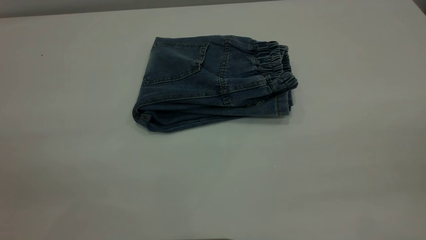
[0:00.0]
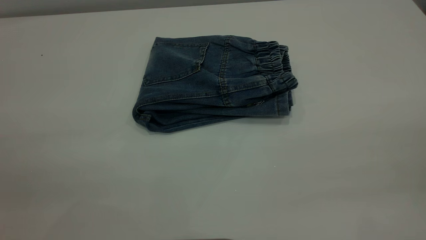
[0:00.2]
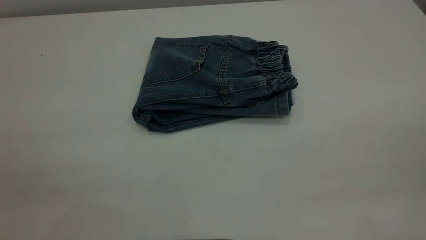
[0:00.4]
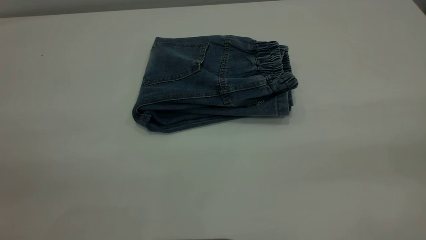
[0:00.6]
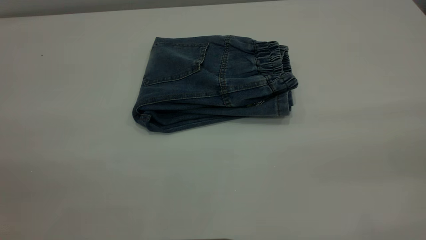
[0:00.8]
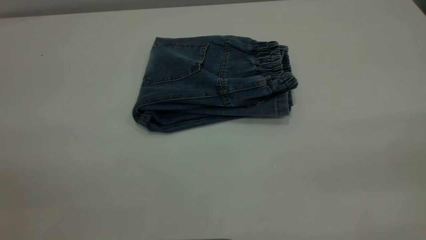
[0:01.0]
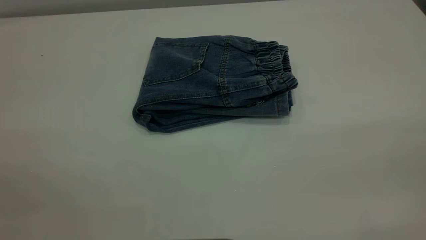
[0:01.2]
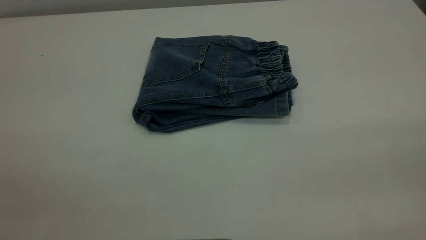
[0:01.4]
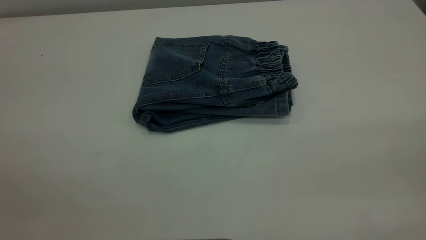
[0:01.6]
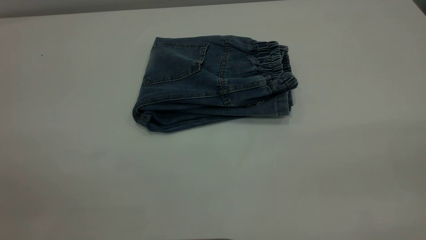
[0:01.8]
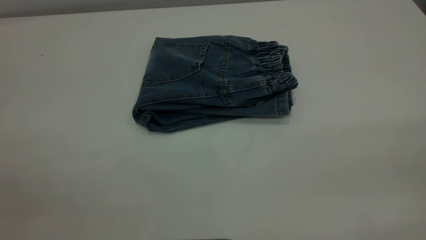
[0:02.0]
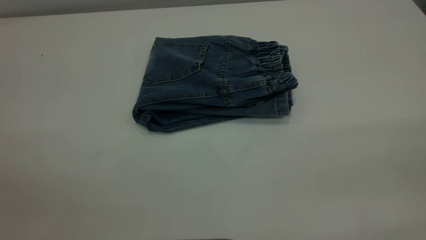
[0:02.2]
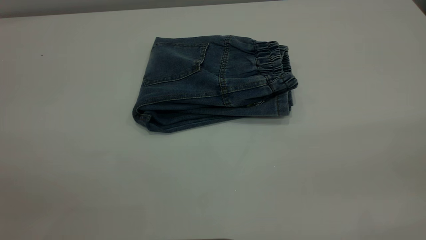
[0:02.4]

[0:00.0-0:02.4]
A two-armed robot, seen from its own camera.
1.2 to 2.4 s: The two grippers keep their place.

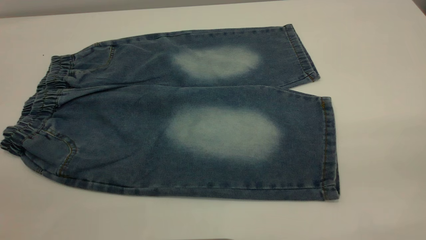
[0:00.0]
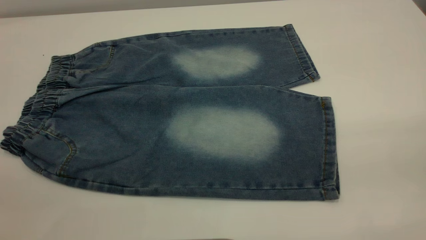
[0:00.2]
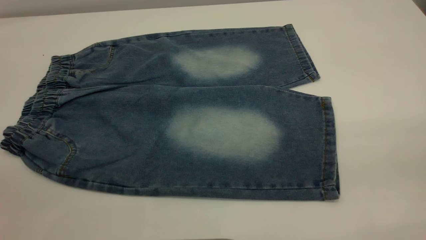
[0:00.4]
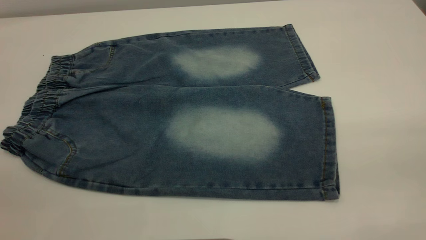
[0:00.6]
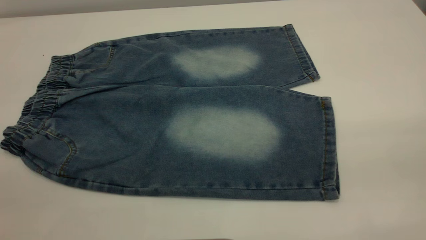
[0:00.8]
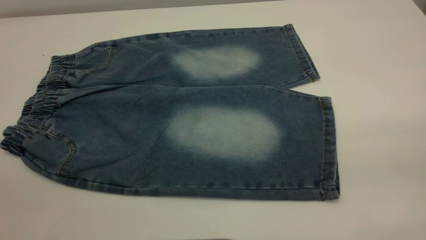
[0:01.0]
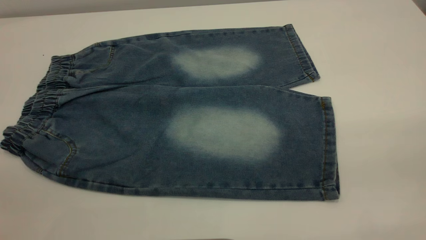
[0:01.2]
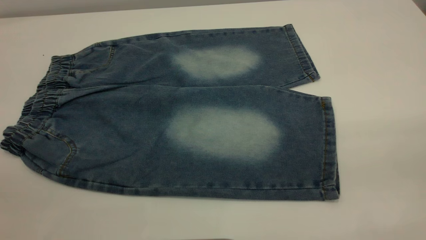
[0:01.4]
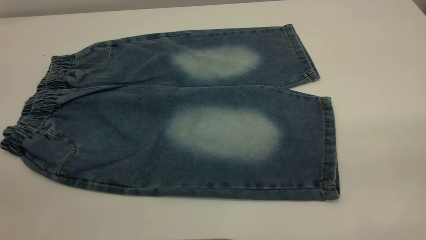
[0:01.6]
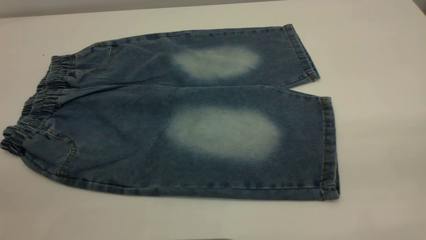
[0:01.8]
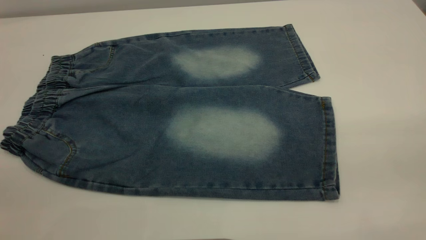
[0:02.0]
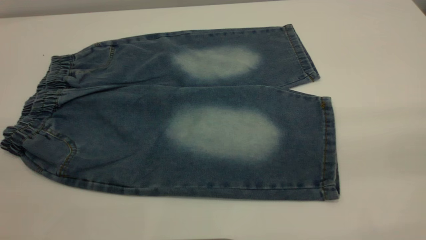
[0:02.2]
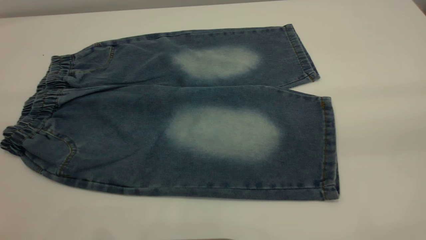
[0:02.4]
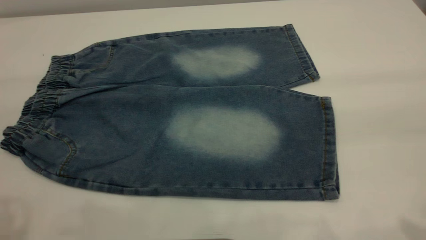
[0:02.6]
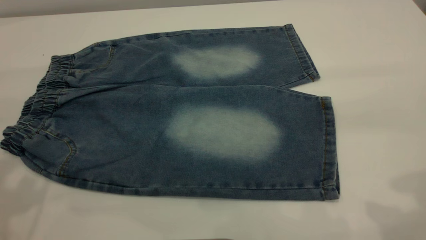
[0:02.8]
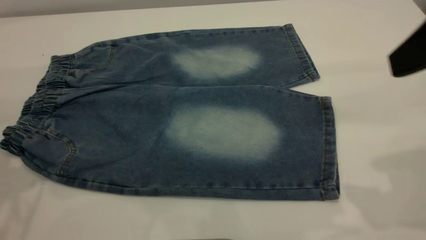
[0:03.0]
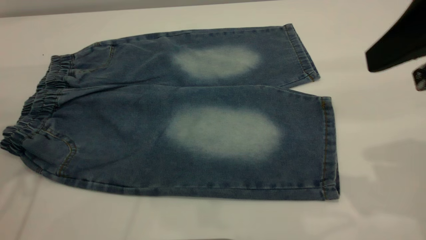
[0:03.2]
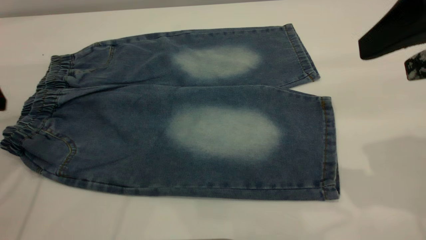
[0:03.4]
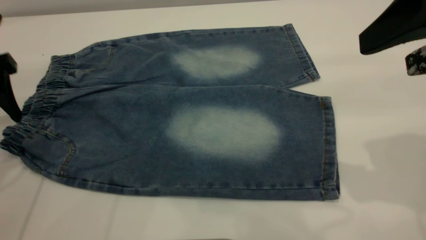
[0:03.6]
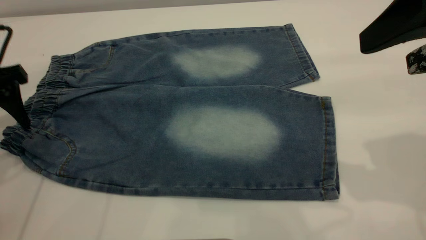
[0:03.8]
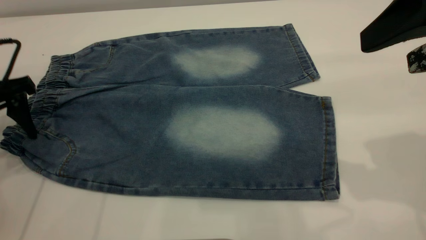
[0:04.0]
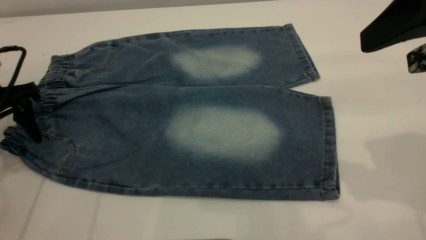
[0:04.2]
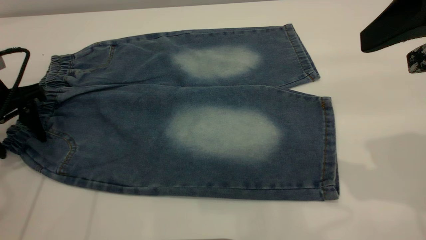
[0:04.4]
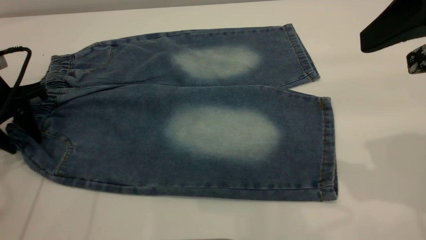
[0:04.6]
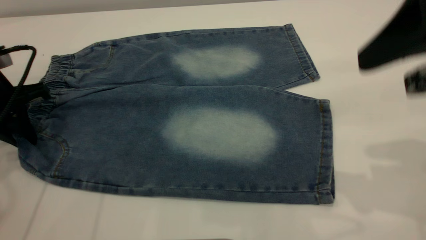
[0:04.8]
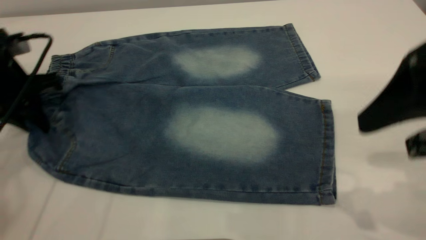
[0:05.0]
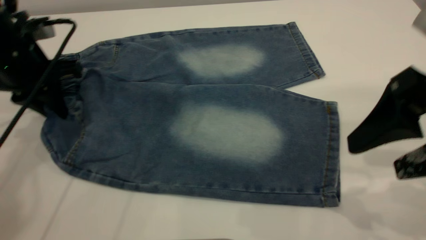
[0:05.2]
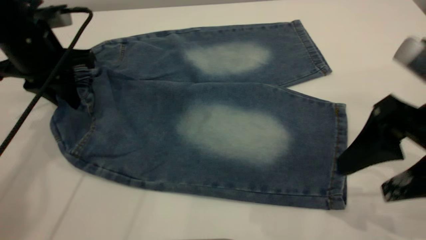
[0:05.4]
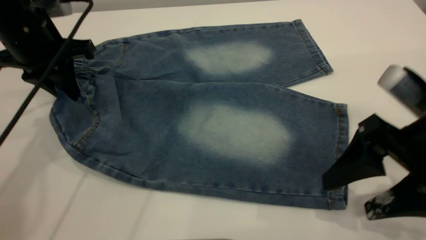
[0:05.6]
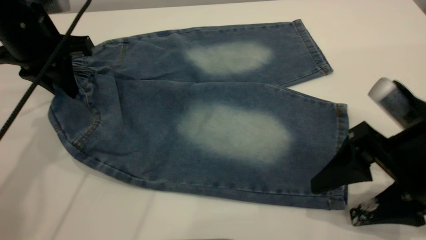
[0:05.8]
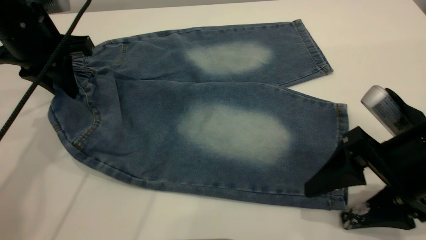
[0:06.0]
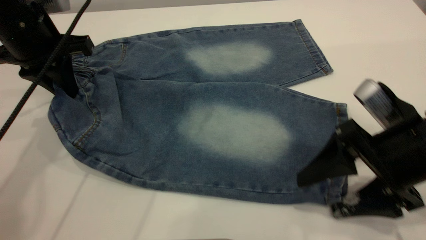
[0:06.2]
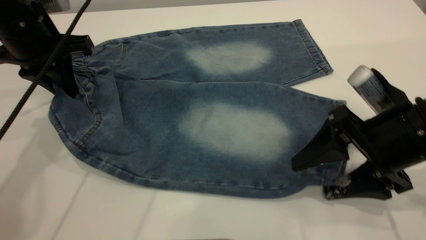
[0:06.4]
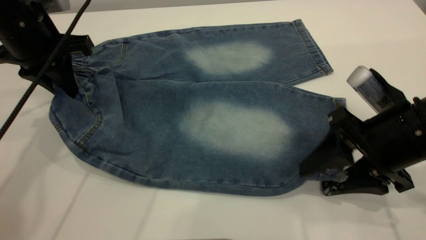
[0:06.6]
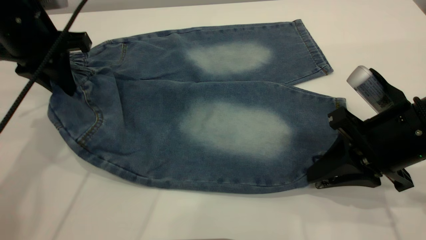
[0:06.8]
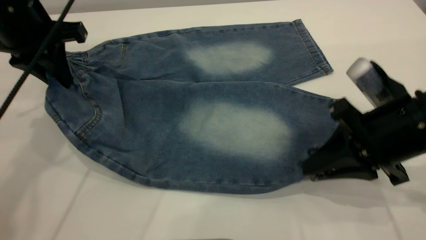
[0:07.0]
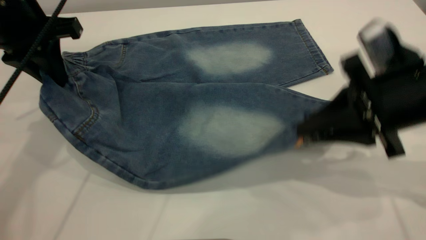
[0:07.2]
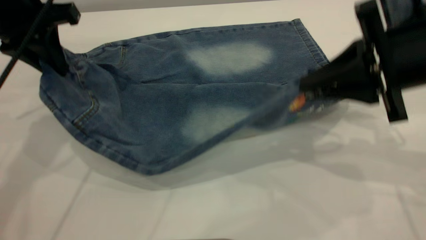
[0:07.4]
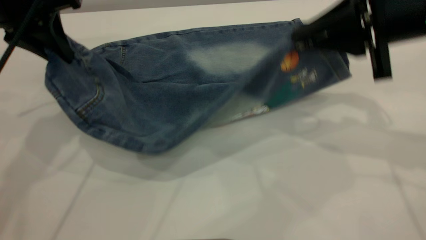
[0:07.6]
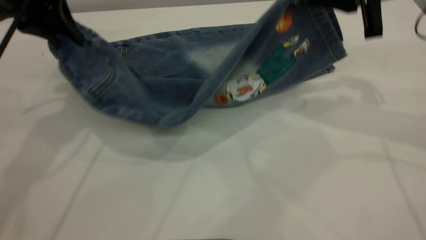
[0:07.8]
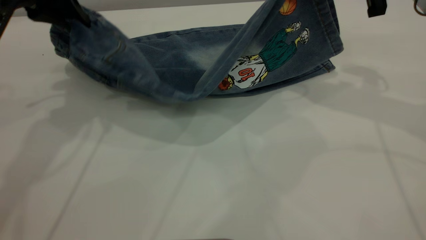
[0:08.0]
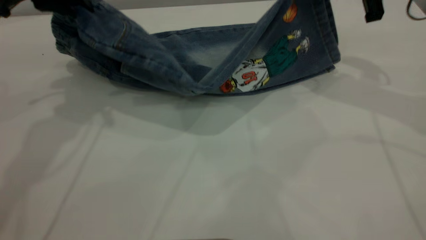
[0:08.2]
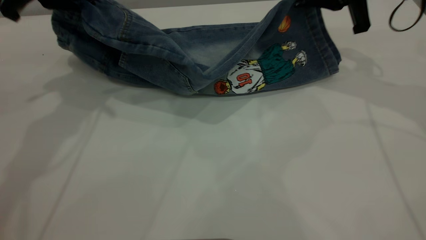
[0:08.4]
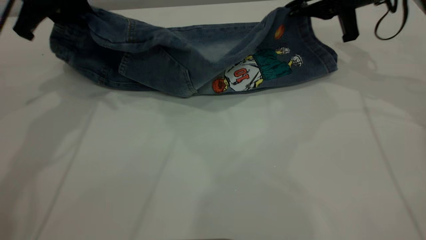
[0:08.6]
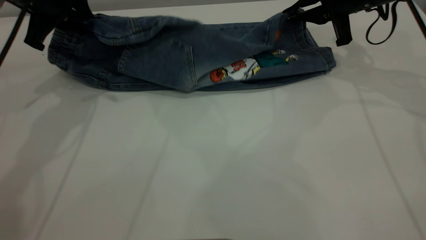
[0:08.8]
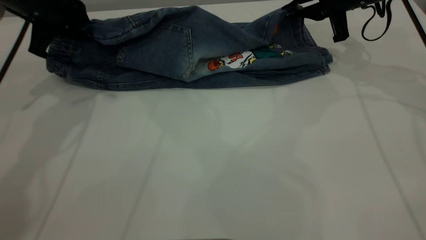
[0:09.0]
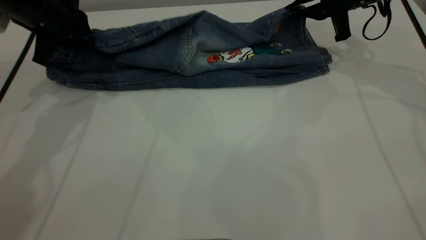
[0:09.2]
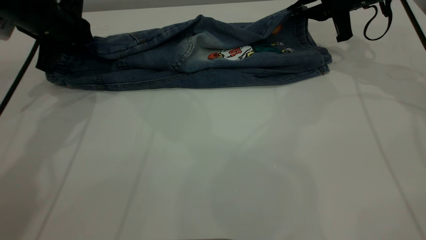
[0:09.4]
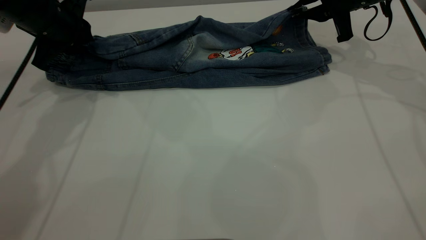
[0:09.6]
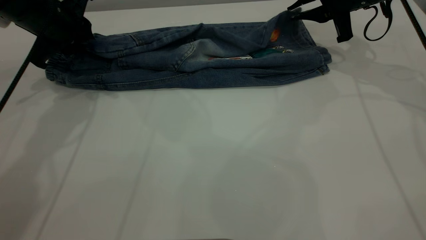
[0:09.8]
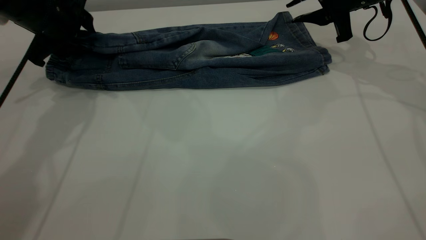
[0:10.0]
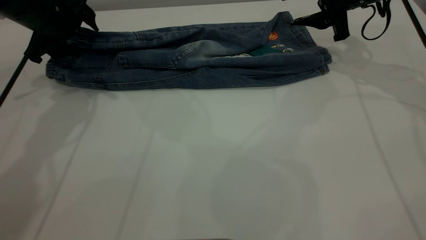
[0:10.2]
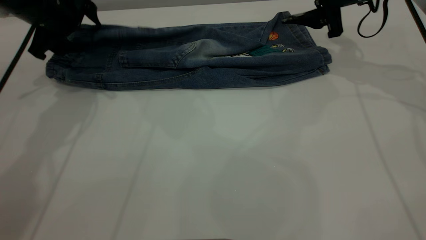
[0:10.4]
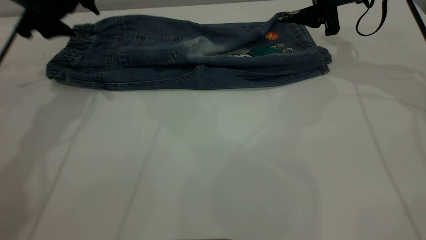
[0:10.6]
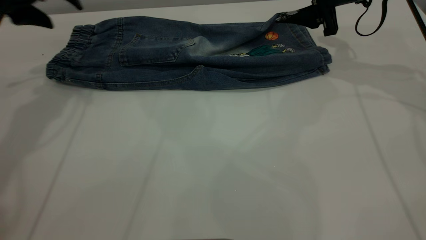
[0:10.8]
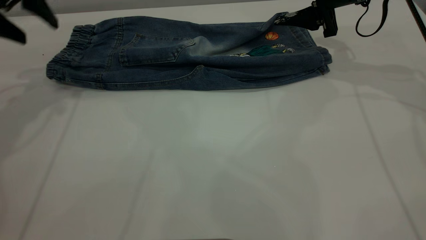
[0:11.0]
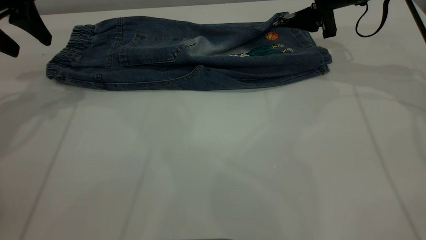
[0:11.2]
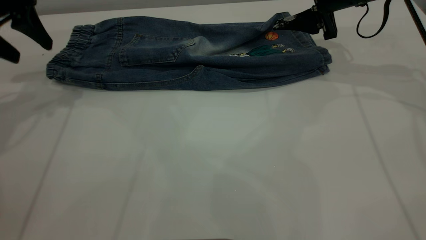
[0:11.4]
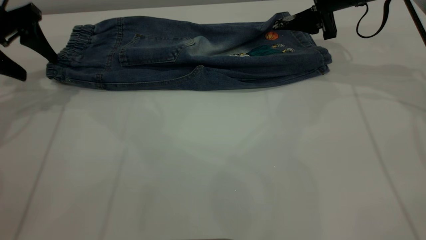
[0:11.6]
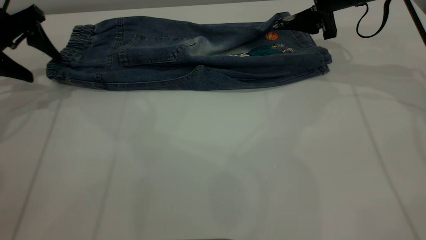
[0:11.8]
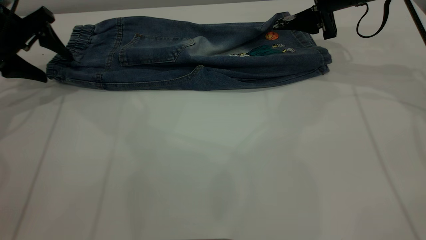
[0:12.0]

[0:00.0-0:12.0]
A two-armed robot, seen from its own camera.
Step, 0.0 to 11.0 s: Fold the bottom of the pants upward.
0.0 to 1.6 s: Neither gripper changes place.
1.6 to 3.0 s: The right gripper is displaced forward by roughly 20 cm.
3.0 to 4.4 s: The left gripper shifts roughly 15 cm downward and forward.
4.4 to 6.0 s: The right gripper shifts approximately 15 cm downward. Meanwhile the left gripper is displaced to the right and upward by some 10 cm, and closes up.
6.0 to 7.6 s: The right gripper goes approximately 15 cm upward and forward, and closes its fingers. The left gripper shifts roughly 5 cm upward.
7.6 to 9.0 s: The right gripper goes approximately 15 cm forward, while the left gripper travels downward and forward by about 10 cm.
9.0 to 10.4 s: The right gripper opens up; the left gripper opens.
10.4 to 12.0 s: The left gripper shifts about 10 cm to the left.

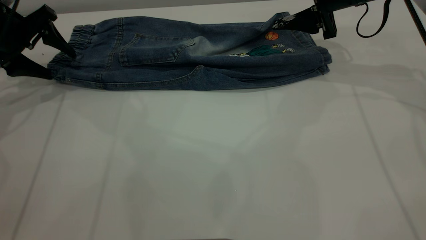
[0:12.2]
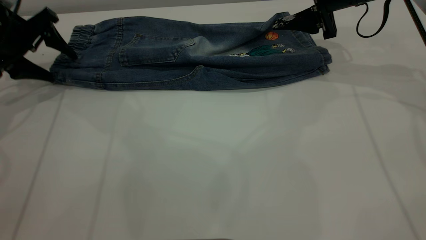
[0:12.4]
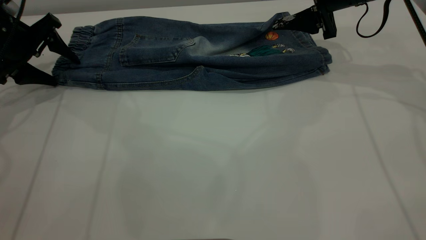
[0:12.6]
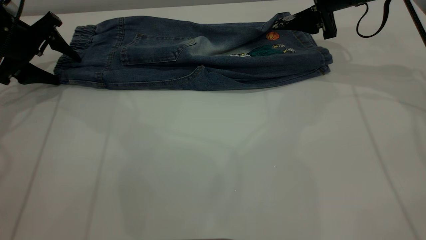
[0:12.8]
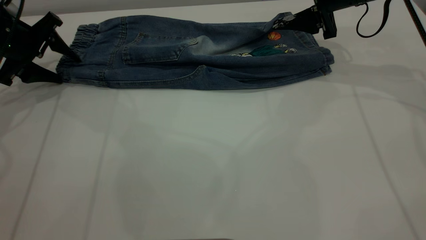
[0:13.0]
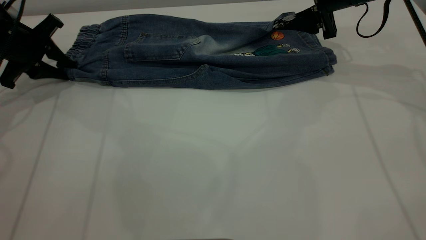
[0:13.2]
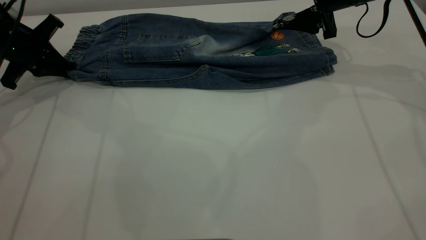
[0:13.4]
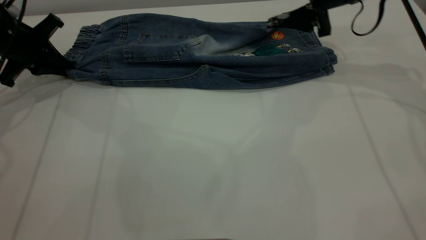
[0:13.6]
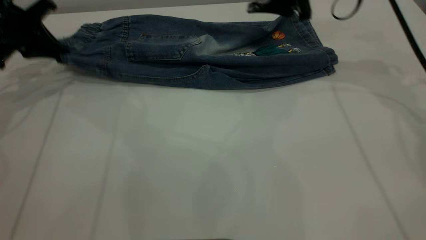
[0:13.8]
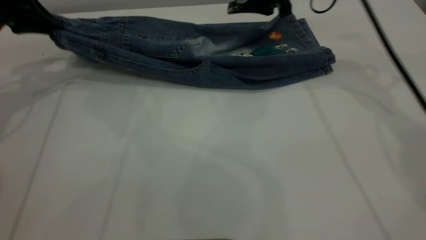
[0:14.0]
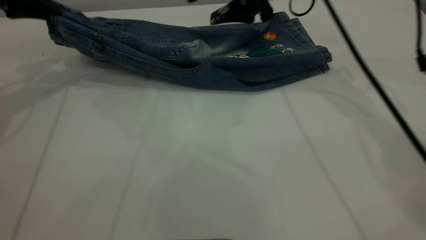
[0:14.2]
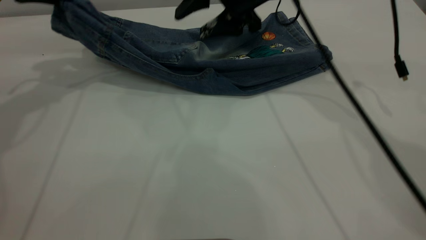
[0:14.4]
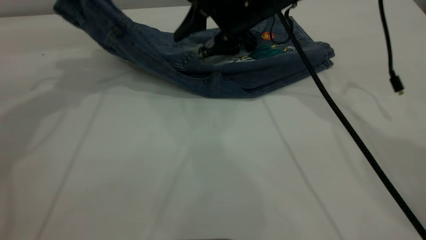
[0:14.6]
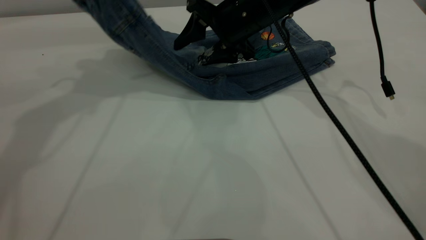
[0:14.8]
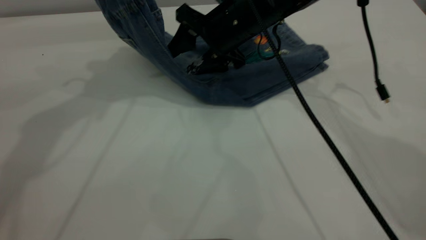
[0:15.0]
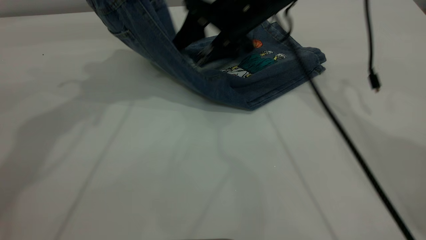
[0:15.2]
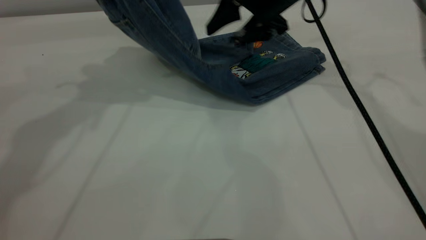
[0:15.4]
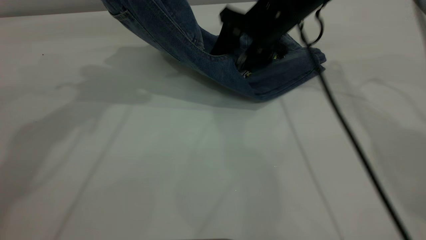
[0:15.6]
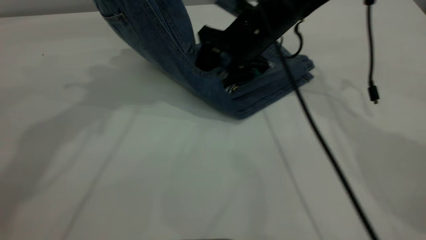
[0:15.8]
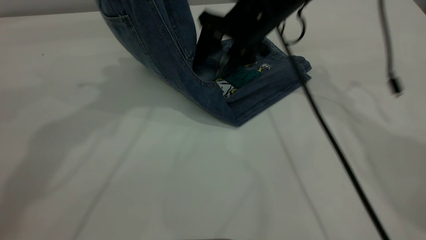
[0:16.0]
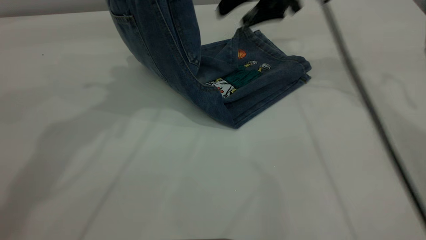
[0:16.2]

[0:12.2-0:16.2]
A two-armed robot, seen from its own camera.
12.2 to 13.6 s: The left gripper closes its fingers.
13.6 to 14.8 s: The left gripper is displaced upward and to the right by roughly 20 cm. The right gripper moves to the left, about 15 cm.
14.8 to 16.2 s: The right gripper goes left and right, roughly 10 cm each way, reversing 2 times. Meanwhile the left gripper heads to the right and upward, covering about 10 cm.
